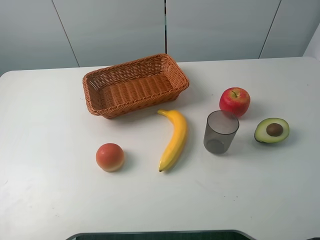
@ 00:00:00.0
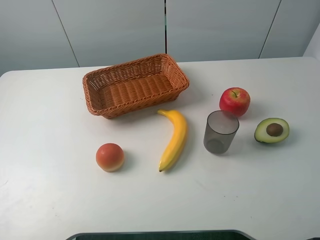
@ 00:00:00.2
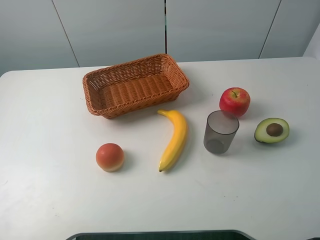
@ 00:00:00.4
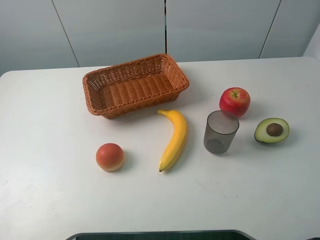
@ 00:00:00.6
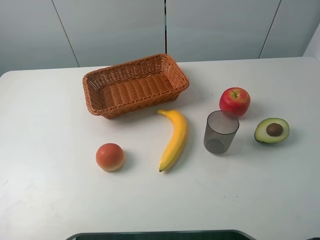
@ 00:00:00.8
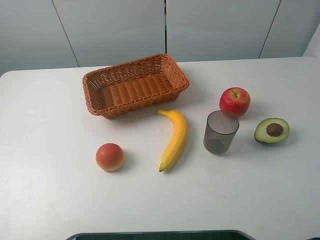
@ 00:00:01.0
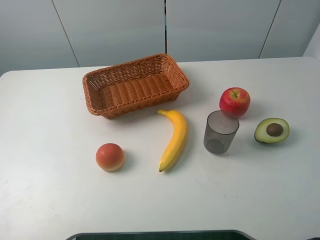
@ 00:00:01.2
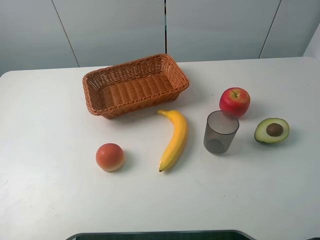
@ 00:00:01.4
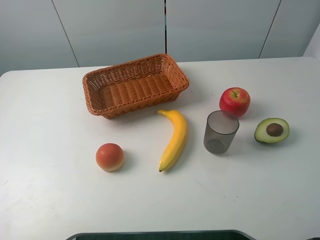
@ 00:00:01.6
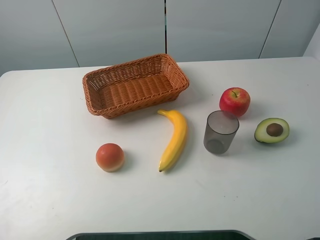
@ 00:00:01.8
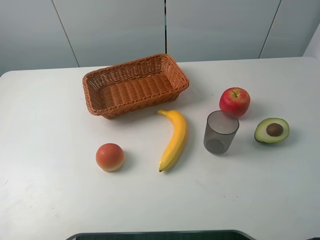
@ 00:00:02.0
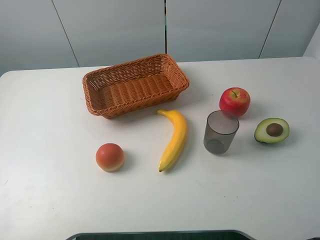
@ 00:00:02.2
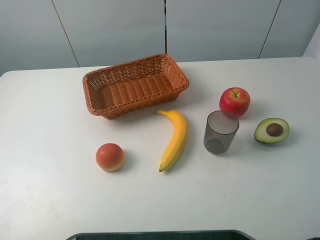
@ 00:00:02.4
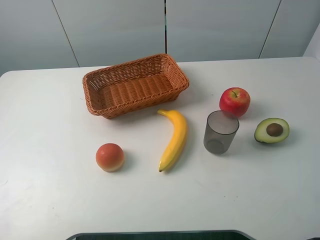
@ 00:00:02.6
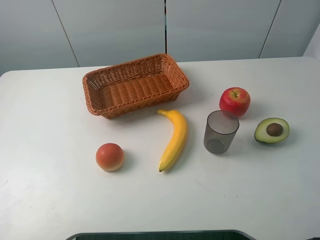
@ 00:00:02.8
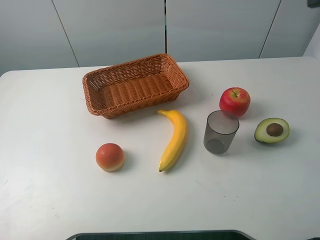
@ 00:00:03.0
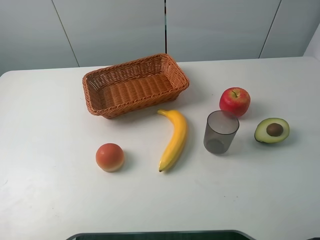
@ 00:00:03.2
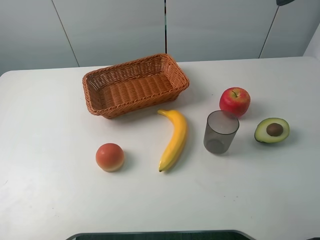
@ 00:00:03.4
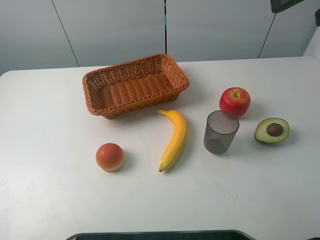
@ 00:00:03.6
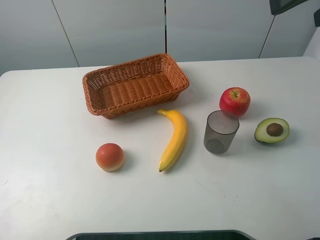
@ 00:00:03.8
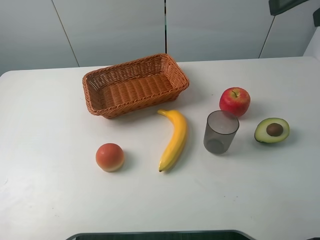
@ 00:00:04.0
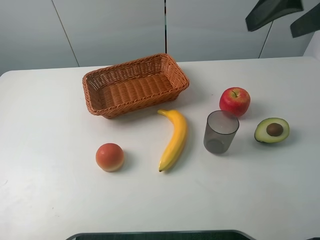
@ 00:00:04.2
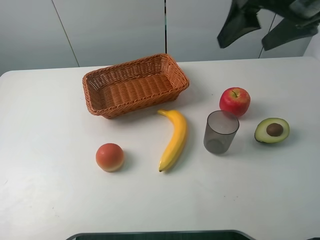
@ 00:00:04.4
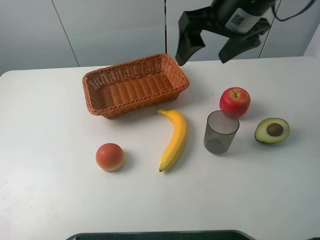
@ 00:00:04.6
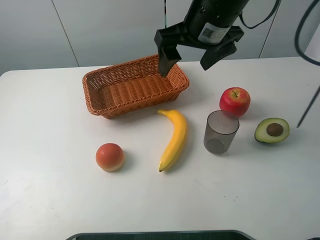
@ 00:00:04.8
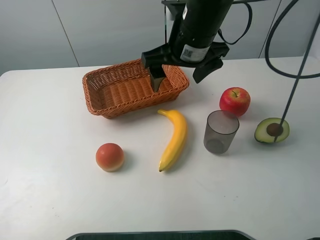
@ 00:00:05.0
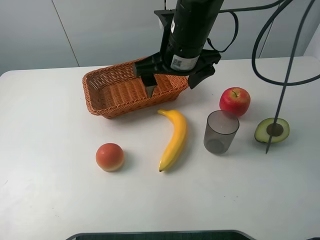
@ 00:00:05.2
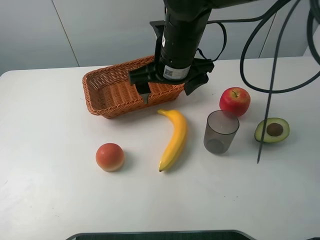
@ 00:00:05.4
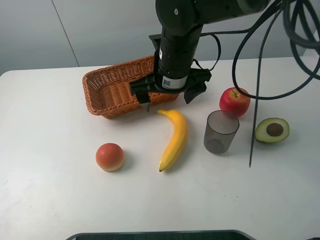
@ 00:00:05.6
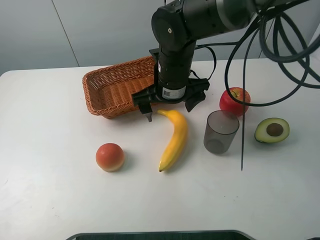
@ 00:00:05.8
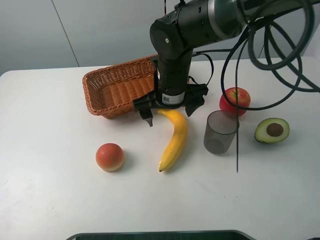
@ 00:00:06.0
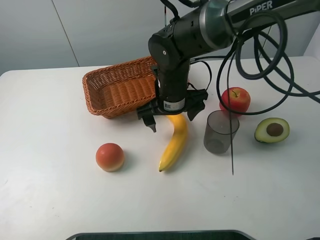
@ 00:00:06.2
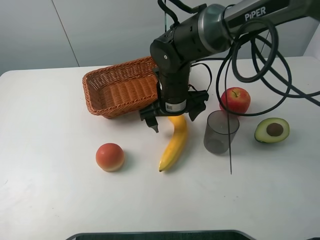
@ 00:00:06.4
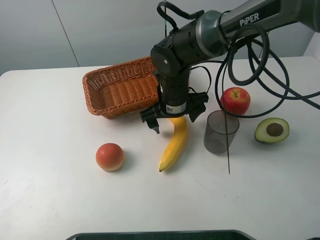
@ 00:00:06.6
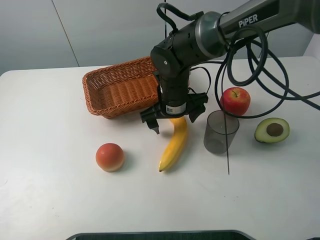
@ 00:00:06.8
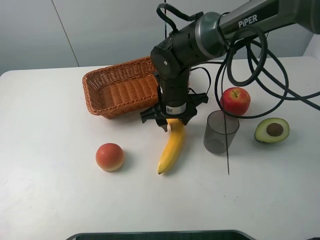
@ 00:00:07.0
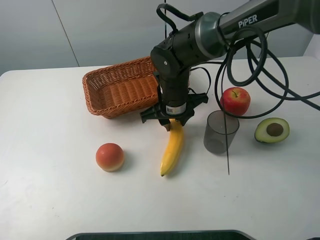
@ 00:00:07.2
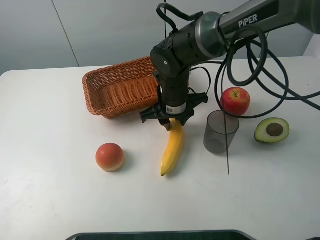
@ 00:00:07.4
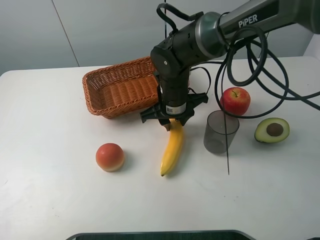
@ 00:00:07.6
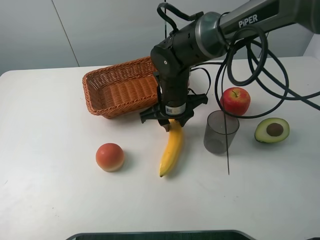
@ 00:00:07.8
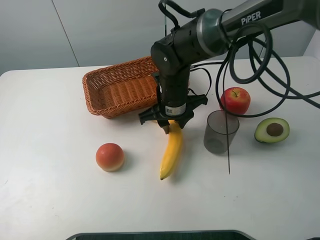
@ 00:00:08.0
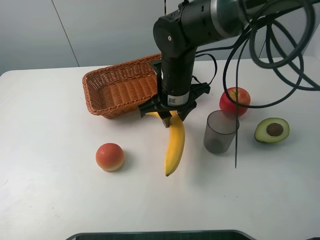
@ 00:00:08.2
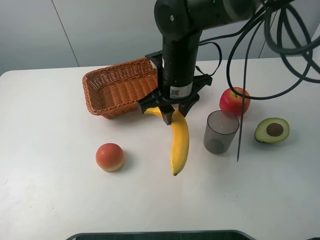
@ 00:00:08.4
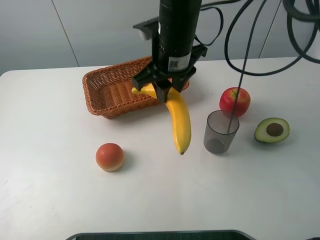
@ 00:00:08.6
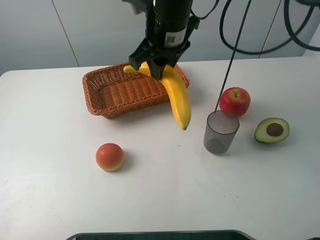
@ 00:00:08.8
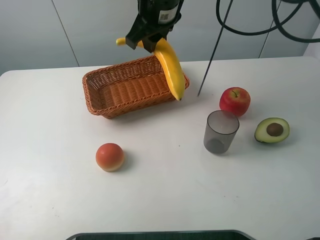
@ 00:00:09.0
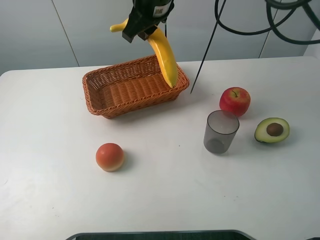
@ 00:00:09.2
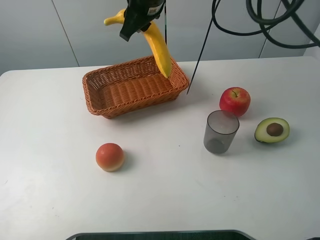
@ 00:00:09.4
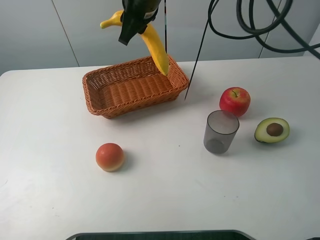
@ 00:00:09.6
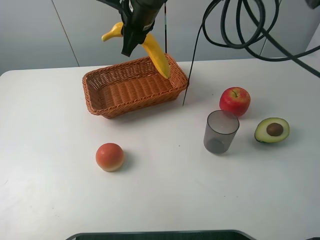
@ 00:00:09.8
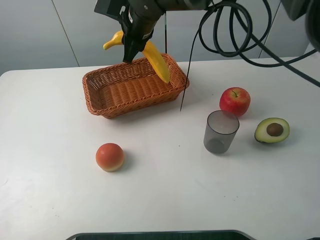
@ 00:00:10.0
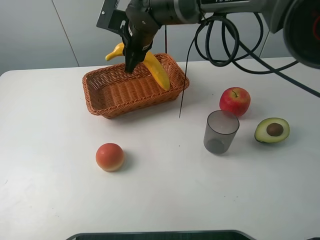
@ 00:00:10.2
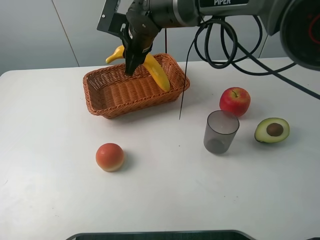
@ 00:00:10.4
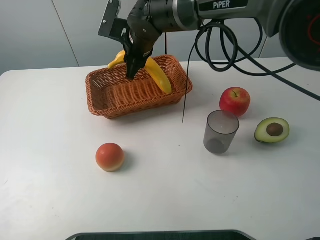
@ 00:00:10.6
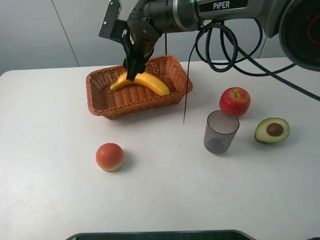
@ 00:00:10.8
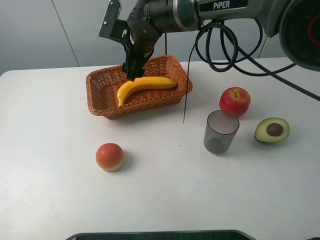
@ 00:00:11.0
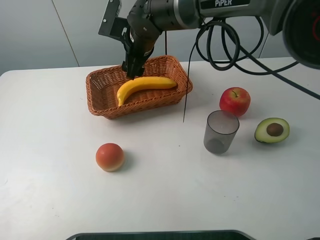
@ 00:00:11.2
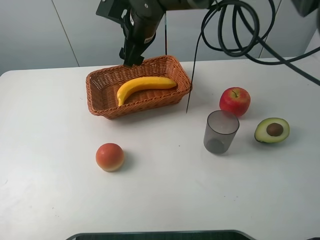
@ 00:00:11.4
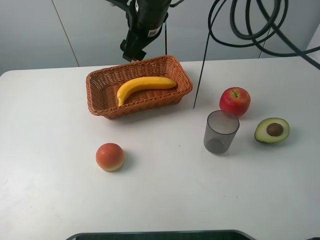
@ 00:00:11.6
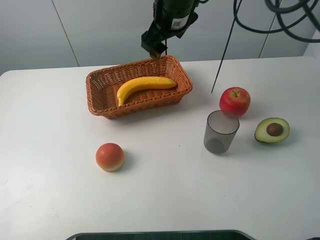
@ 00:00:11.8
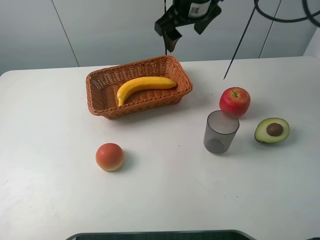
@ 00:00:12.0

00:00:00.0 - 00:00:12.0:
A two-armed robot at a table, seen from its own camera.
Task of the whole recording: randomly pick up an item from the table and put it in the basket.
Step, 00:00:00.0 - 00:00:07.6: Grasp the banana with the right gripper.
Step, 00:00:07.8 - 00:00:11.6: Place the banana into the basket with the right gripper.
00:00:00.0 - 00:00:01.6: The two grippers keep their place.
00:00:03.0 - 00:00:04.4: The right gripper is displaced forward, to the left and downward by some 15 cm.
00:00:04.4 - 00:00:06.0: The right gripper is displaced downward and to the left by about 25 cm.
00:00:06.0 - 00:00:07.6: The right gripper closes.
00:00:07.6 - 00:00:09.0: The right gripper goes roughly 20 cm upward.
00:00:09.0 - 00:00:10.4: The right gripper heads downward, covering roughly 10 cm.
00:00:10.4 - 00:00:12.0: The right gripper shifts roughly 15 cm to the right and upward, and opens up.

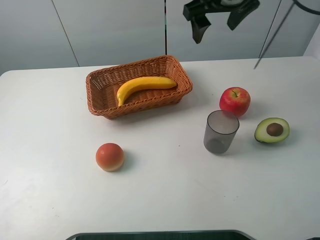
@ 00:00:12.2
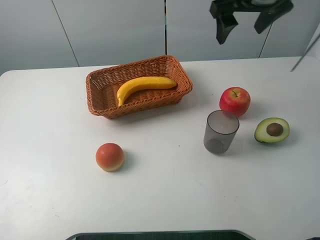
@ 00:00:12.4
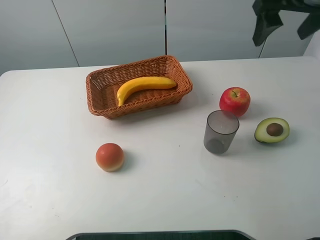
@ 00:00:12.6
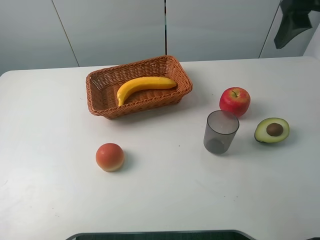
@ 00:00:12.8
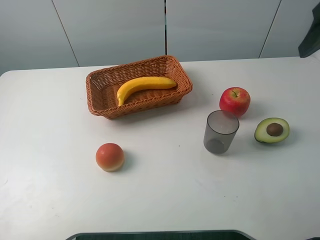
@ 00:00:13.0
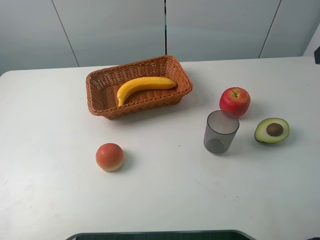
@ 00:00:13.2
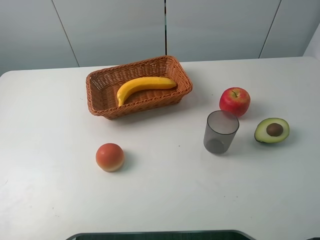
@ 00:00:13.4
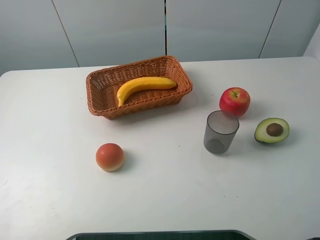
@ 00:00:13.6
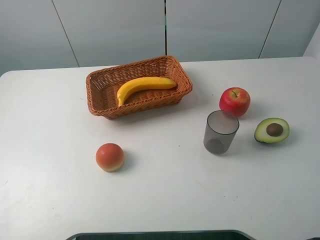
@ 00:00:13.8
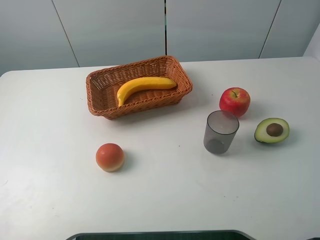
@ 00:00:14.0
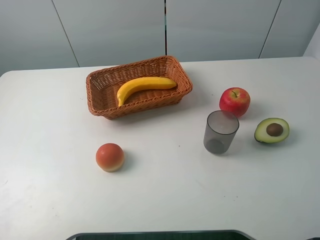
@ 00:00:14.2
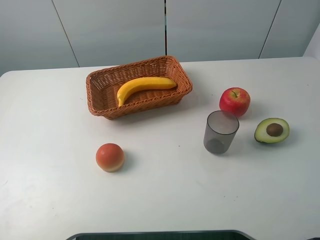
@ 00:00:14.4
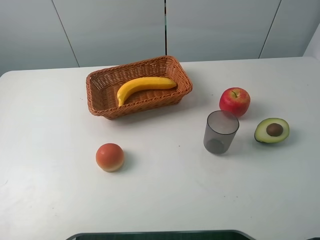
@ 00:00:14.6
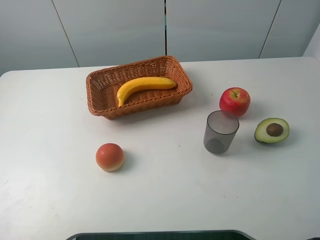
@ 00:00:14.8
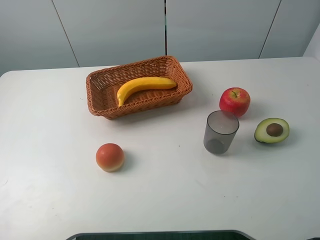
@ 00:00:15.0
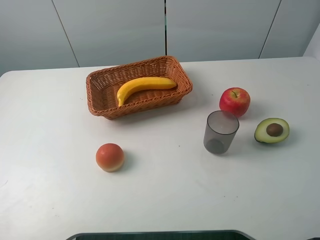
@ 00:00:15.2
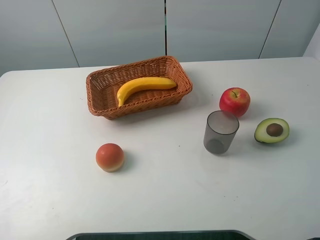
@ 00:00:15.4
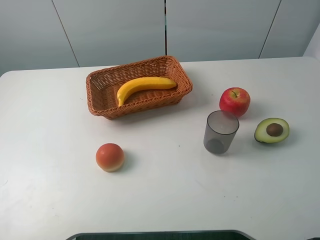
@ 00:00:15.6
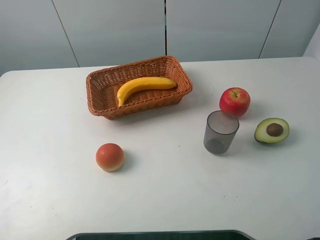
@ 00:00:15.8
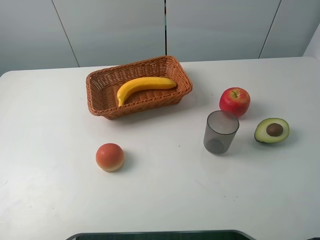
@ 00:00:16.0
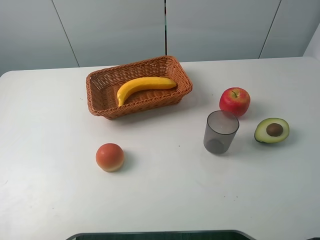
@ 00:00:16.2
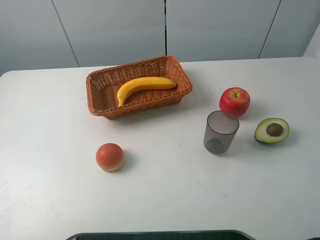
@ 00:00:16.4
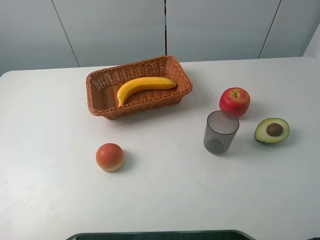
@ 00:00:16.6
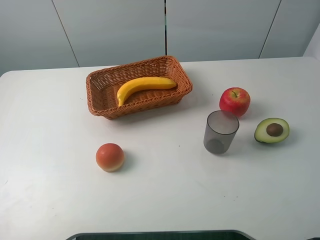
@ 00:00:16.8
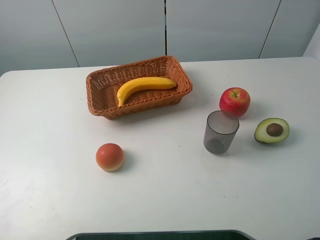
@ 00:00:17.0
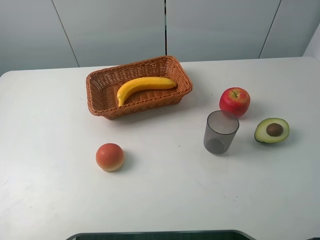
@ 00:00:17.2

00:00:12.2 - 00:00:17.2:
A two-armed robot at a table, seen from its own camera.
Task of the whole recording: randomly pick up an item from the table and put it in the basket.
00:00:12.2 - 00:00:13.8: The right gripper goes roughly 35 cm backward and to the right.
00:00:15.6 - 00:00:17.2: The two grippers keep their place.
